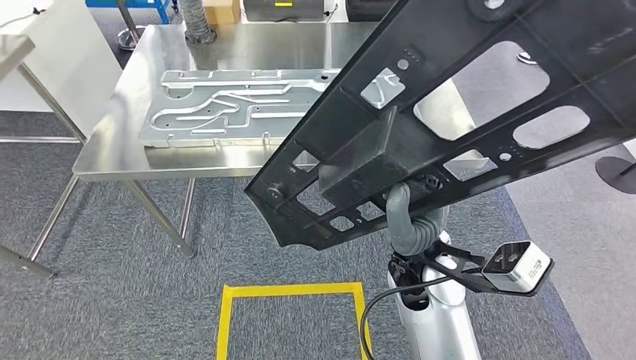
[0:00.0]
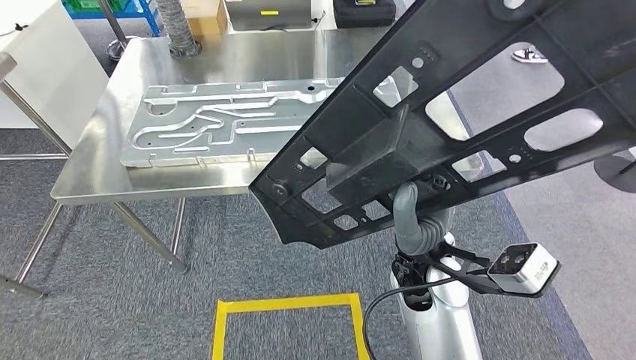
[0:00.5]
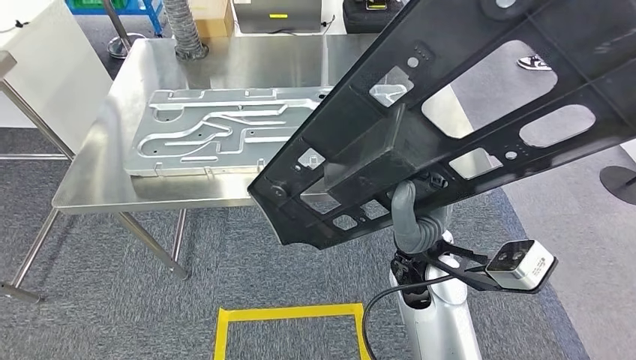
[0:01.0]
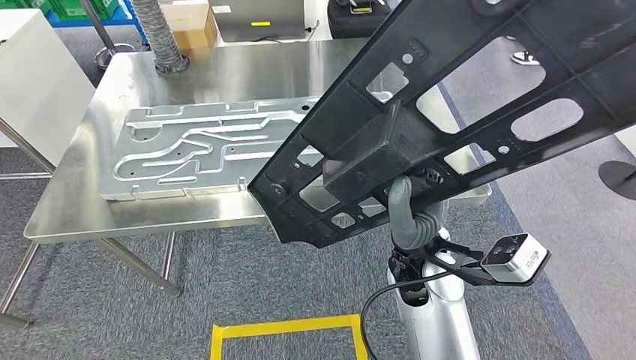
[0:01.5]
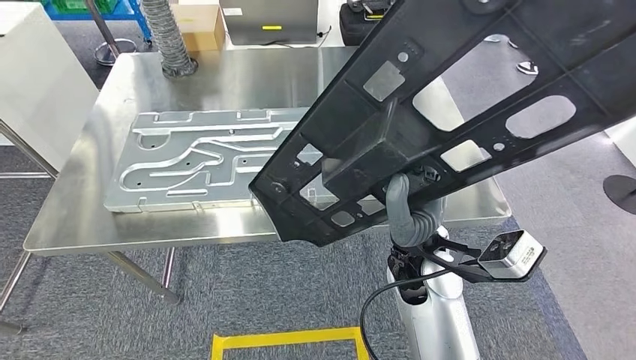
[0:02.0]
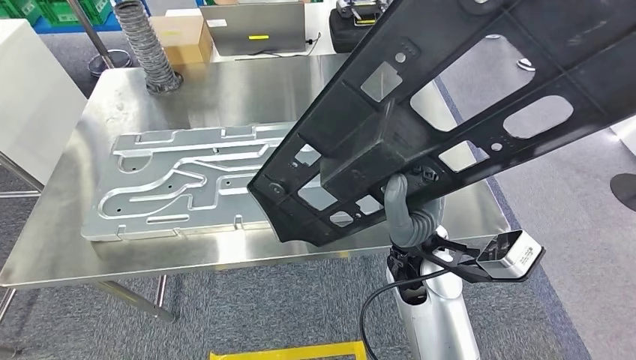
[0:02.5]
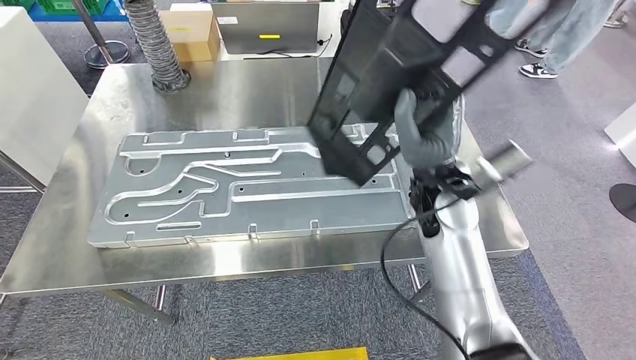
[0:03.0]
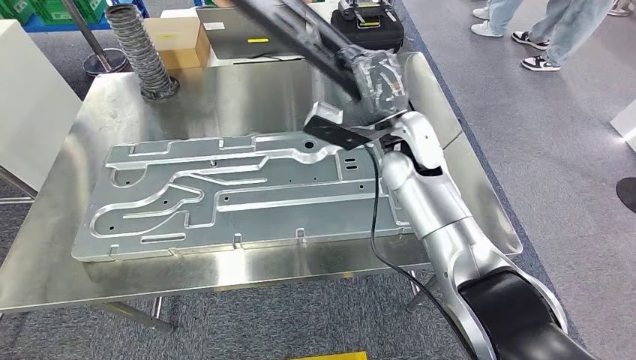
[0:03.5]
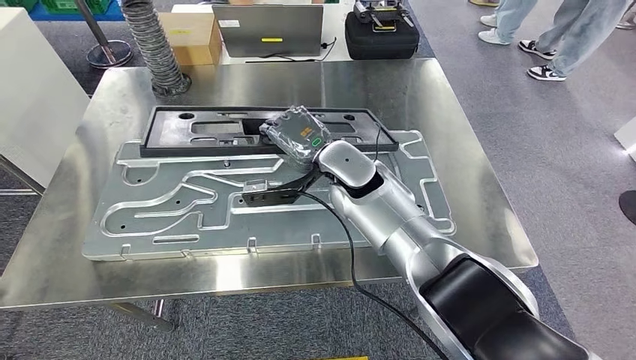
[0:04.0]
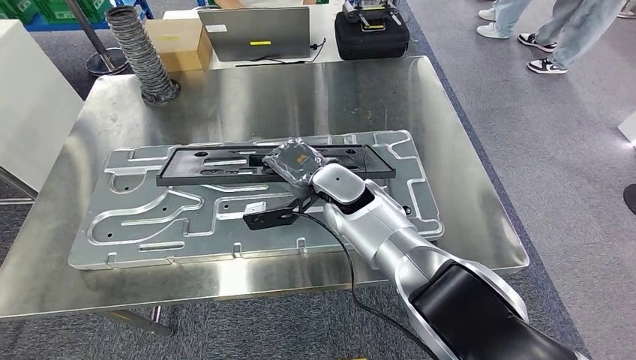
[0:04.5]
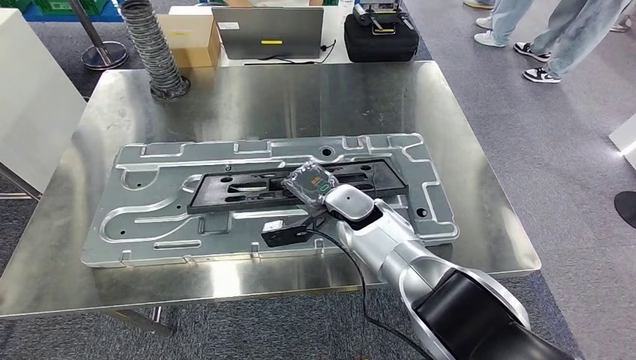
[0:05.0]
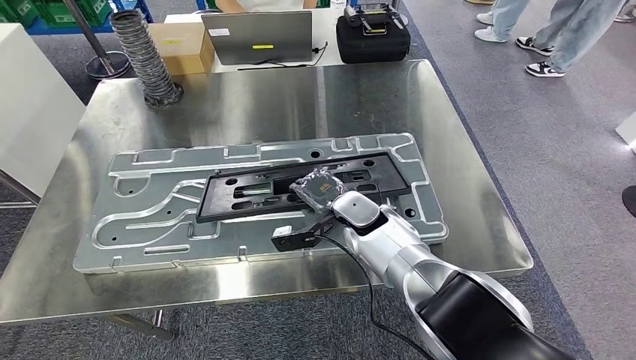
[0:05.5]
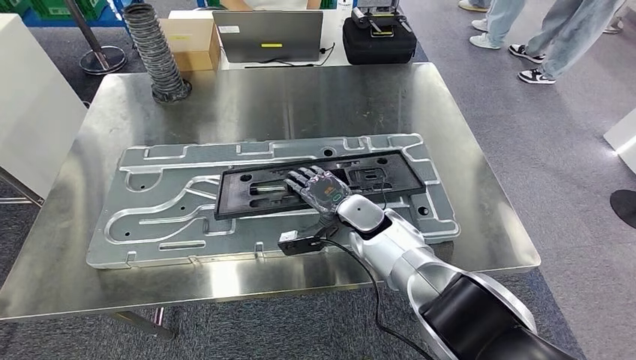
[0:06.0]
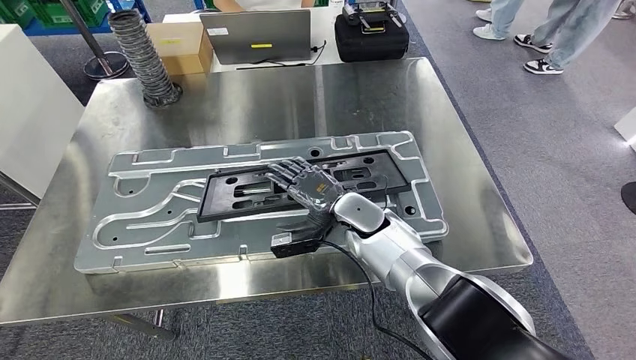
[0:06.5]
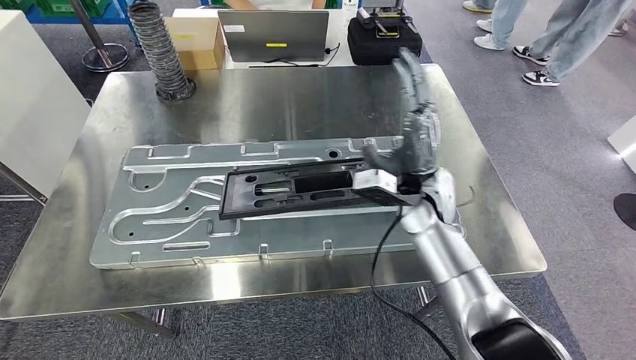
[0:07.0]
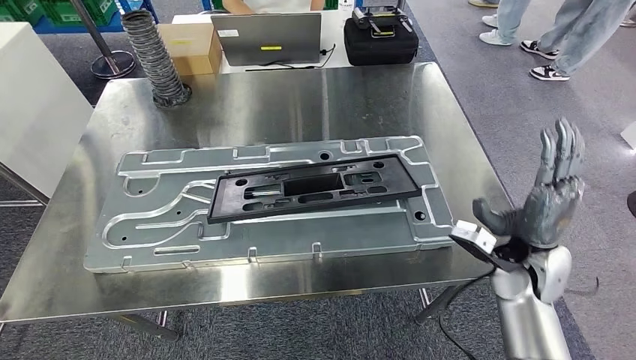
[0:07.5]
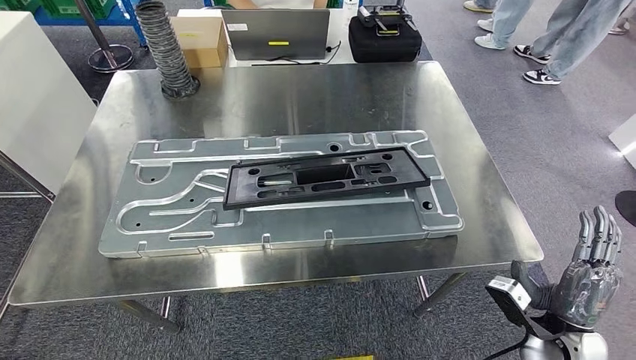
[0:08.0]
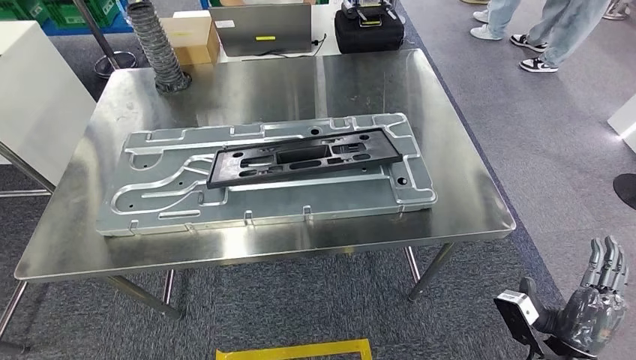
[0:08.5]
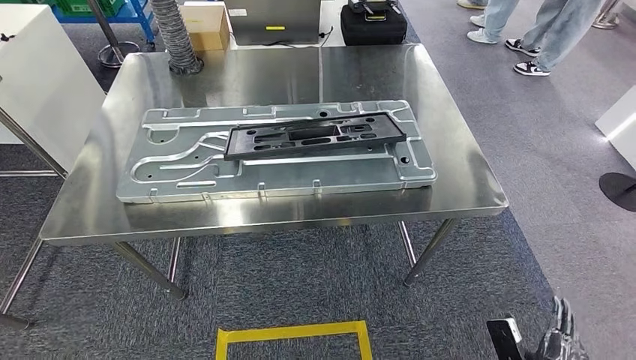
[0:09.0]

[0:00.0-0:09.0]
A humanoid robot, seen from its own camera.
Step, 0:02.0 to 0:06.5: Insert the large parts into the corresponding slots on the workbench.

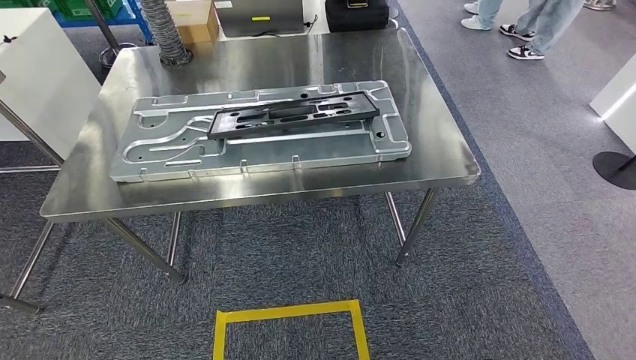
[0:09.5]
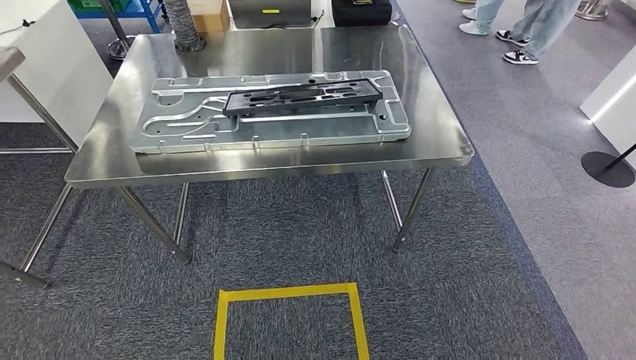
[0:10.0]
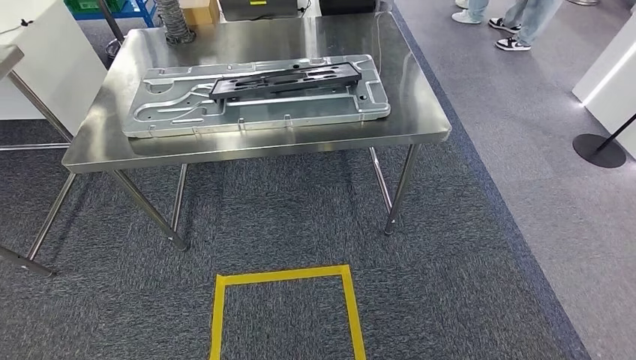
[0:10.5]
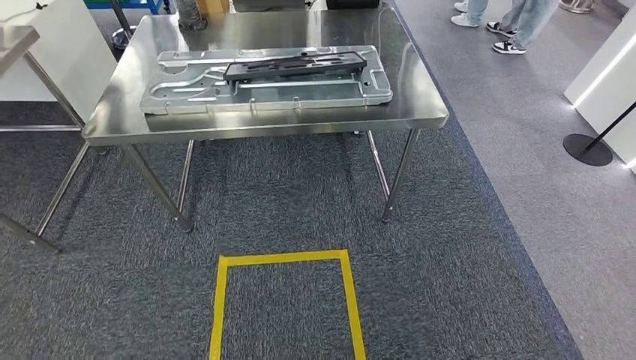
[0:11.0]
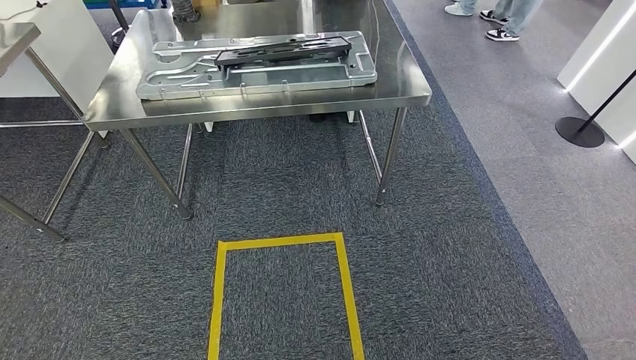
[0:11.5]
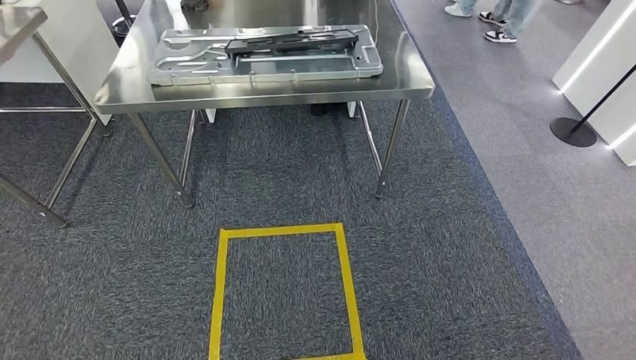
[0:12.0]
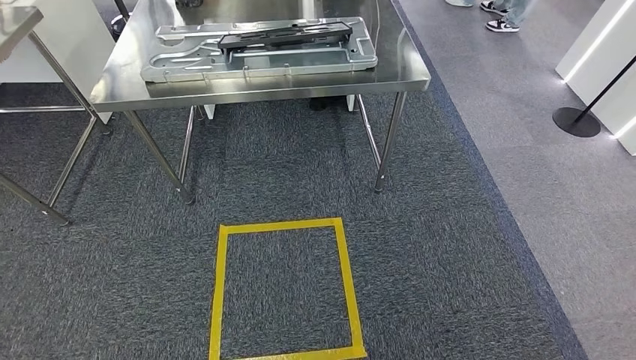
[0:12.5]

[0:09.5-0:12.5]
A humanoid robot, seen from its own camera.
Step, 0:09.5 to 0:12.5: Return to the initial position at the shelf.
